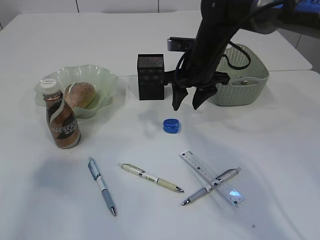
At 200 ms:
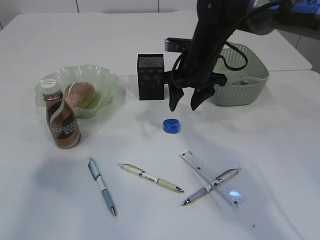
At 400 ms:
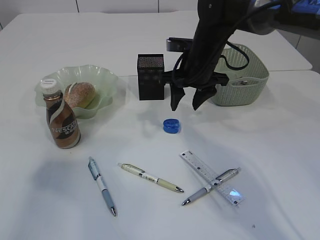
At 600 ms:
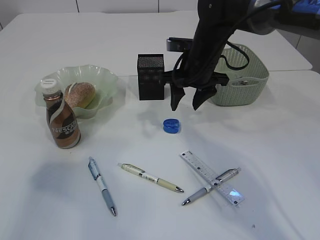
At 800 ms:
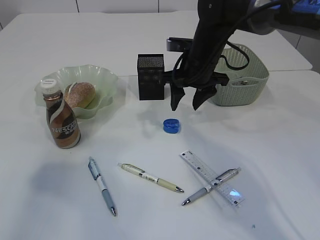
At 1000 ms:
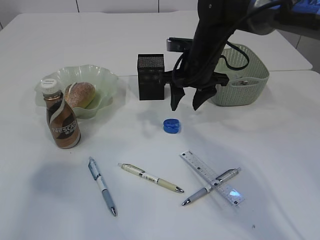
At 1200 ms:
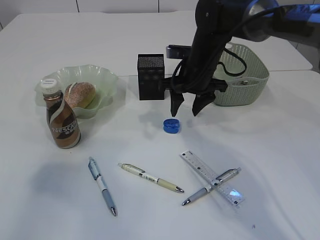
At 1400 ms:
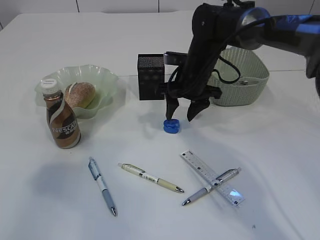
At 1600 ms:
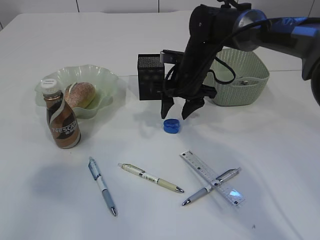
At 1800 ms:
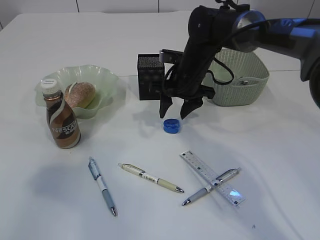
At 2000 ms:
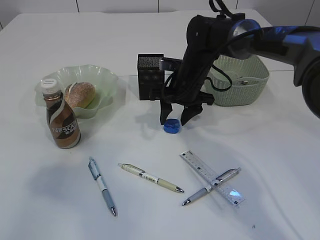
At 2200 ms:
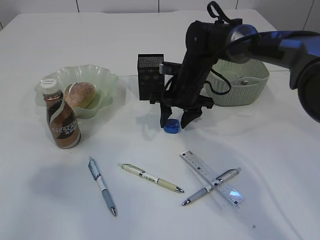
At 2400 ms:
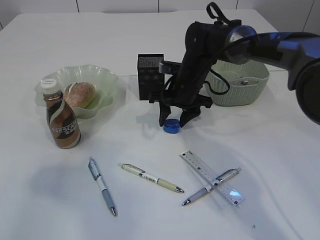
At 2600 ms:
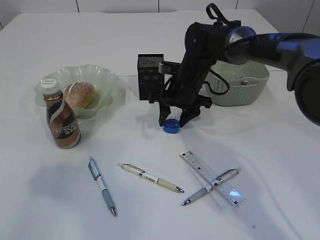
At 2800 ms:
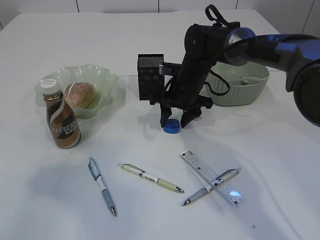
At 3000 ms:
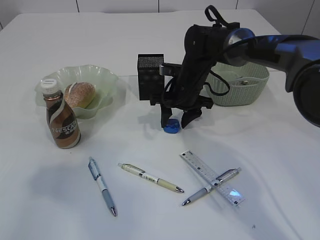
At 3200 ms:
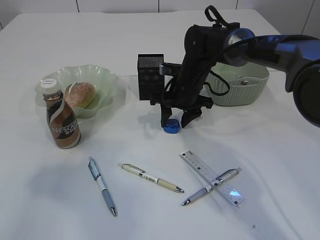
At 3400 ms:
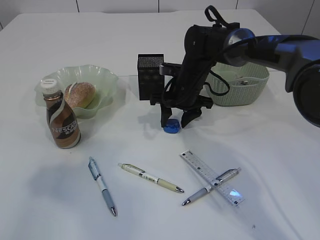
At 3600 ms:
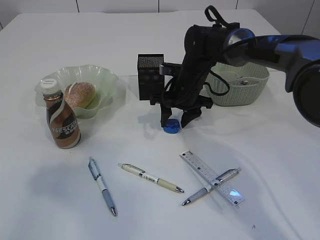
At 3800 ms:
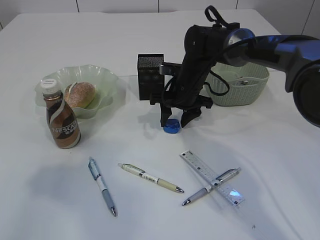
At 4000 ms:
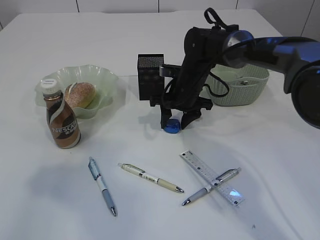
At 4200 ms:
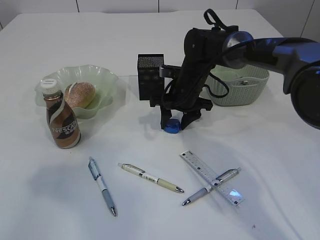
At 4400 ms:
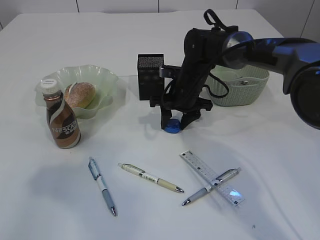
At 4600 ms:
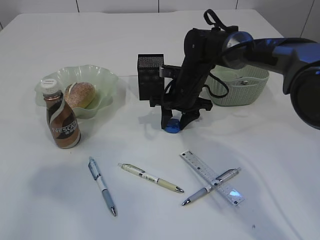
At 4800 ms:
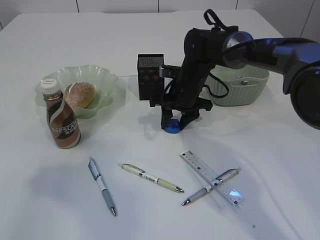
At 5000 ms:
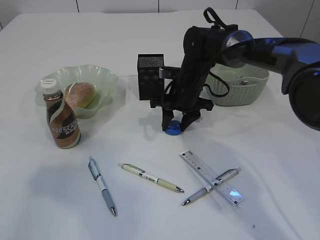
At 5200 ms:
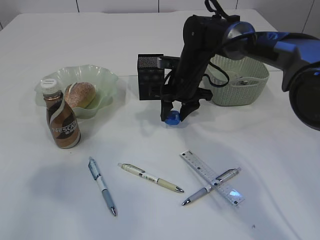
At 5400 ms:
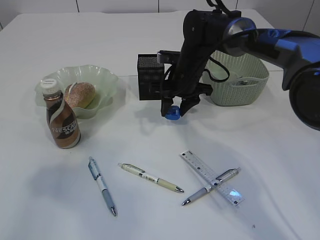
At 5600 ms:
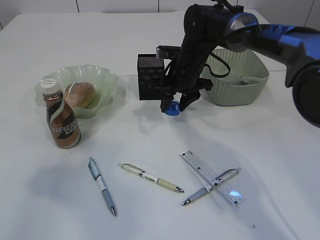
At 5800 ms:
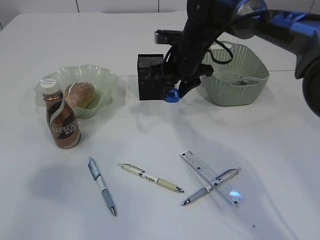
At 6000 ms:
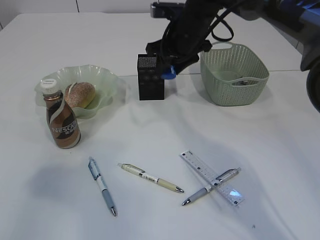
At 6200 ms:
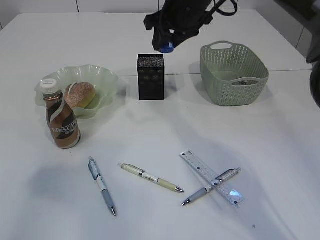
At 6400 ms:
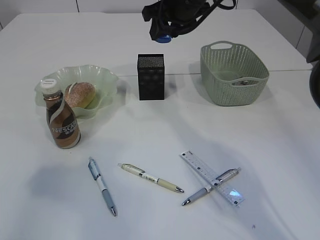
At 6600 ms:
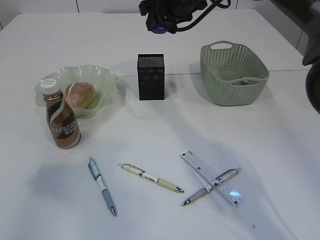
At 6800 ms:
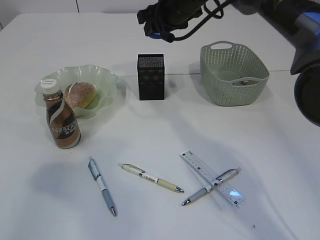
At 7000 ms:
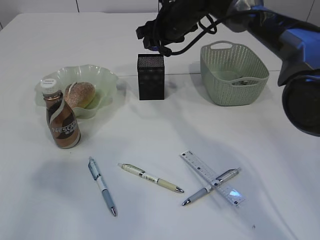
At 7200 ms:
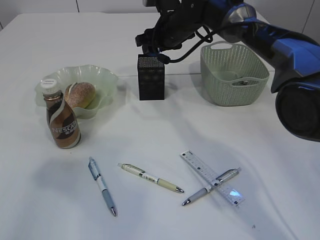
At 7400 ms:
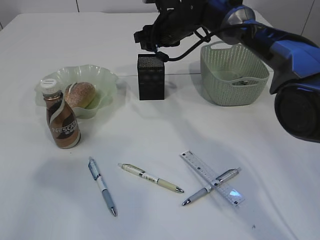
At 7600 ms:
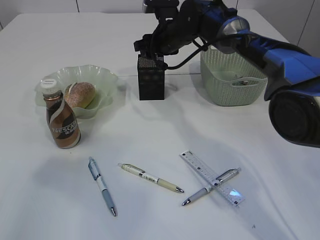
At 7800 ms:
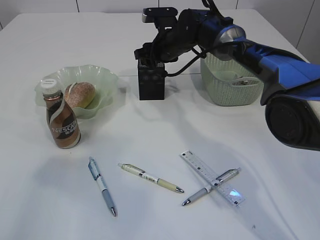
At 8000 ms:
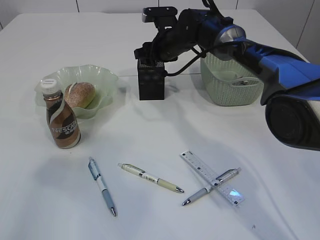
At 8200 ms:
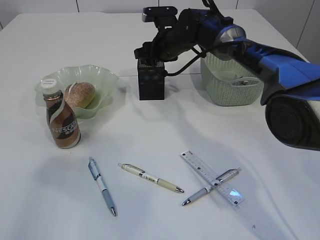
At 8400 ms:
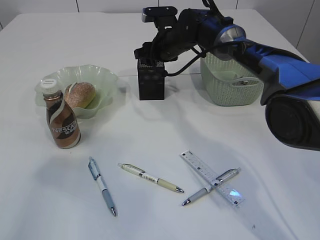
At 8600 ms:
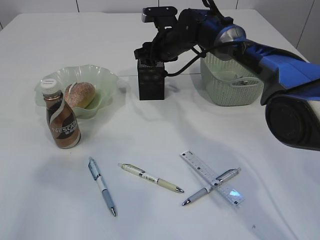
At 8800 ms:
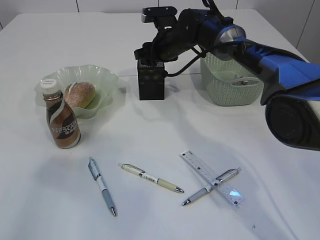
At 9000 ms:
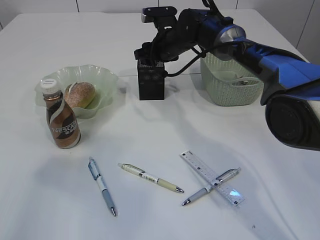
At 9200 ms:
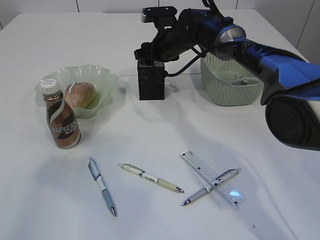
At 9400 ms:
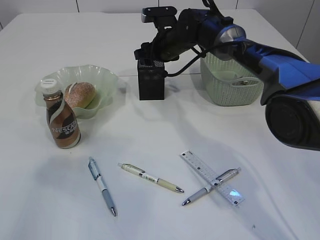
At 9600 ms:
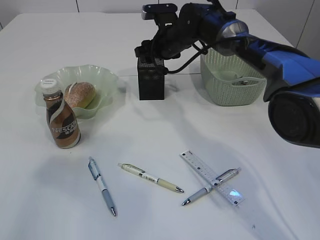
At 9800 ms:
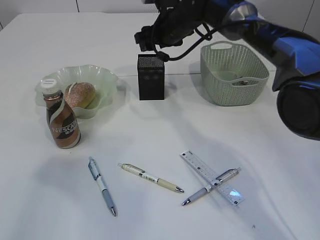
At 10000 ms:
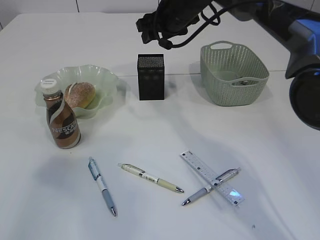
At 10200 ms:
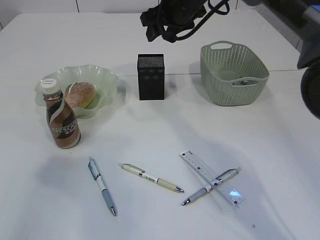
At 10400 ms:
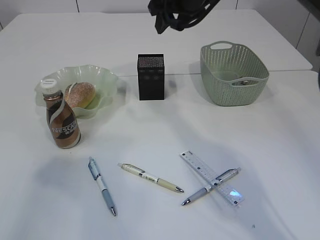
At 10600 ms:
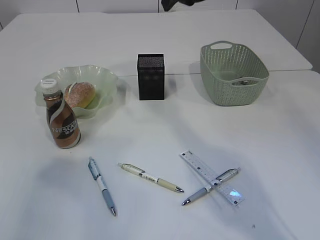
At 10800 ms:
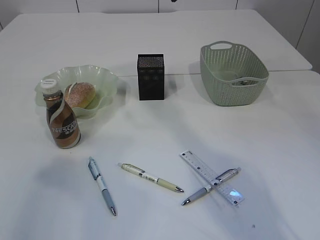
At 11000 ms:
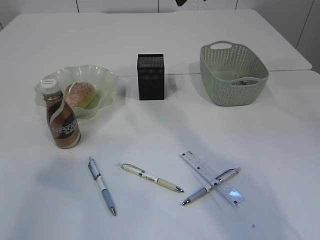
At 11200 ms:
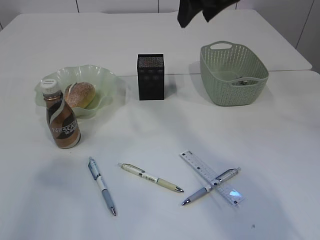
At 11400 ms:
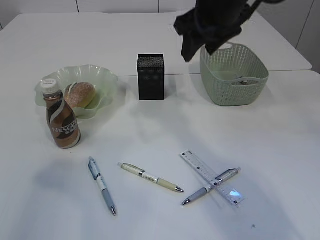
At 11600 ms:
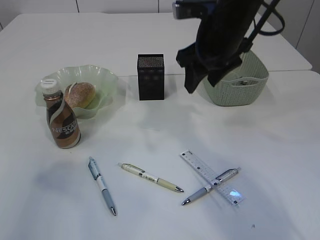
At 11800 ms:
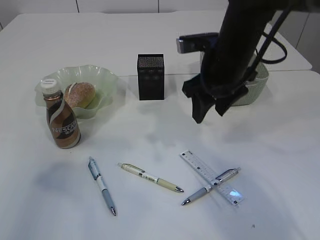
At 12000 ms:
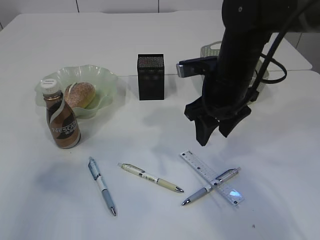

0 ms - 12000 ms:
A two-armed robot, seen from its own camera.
Step, 0 ms - 5800 ms: Pick up the blue pencil sharpener.
Step, 6000 ms - 10000 ms: Place the blue pencil sharpener into the pen holder.
0 ms - 1600 ms: The grippers stay close to where they were, moving slightly.
1600 ms - 3000 ms: The grippers stay close to where they were, moving slightly.
3000 ms - 4400 ms: Neither gripper changes place.
4400 ms - 6000 ms: The right gripper shifts roughly 10 cm upward.
6000 ms - 7600 ms: The right gripper moves forward, roughly 5 cm, and moves some 10 cm upward and comes back.
7600 ms - 9000 ms: The grippers make only small movements.
9000 ms - 10400 ms: The right gripper heads upward and backward, covering some 15 cm.
10400 ms - 12000 ms: The right gripper shifts about 15 cm backward and downward.

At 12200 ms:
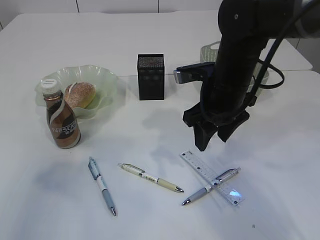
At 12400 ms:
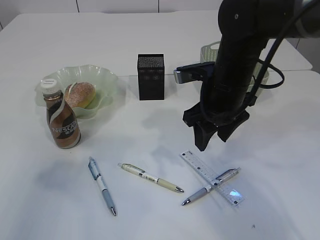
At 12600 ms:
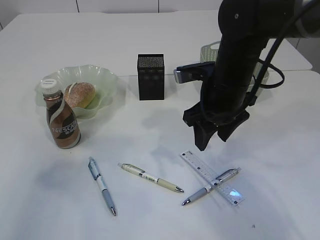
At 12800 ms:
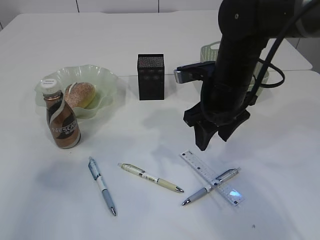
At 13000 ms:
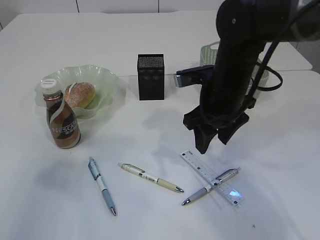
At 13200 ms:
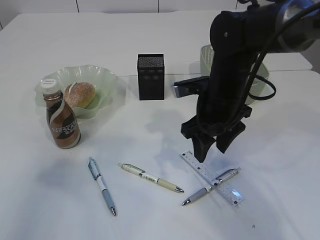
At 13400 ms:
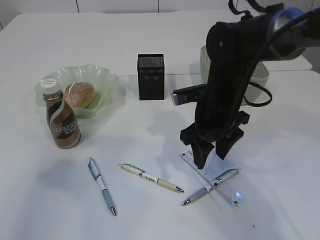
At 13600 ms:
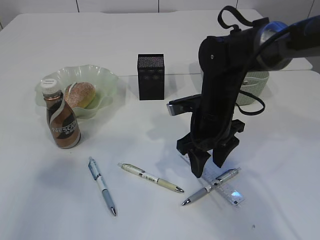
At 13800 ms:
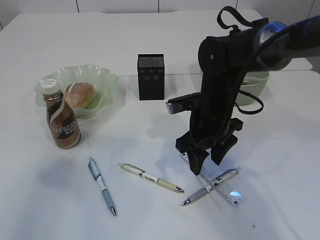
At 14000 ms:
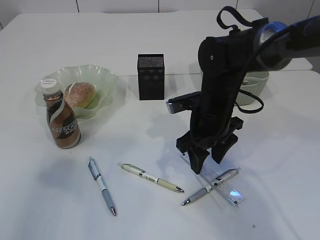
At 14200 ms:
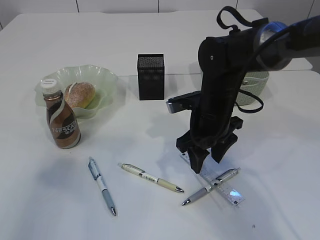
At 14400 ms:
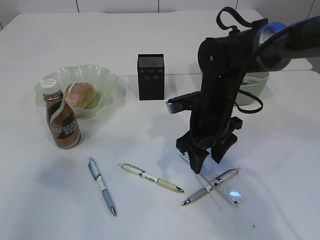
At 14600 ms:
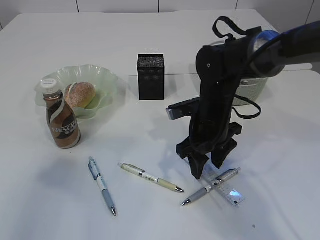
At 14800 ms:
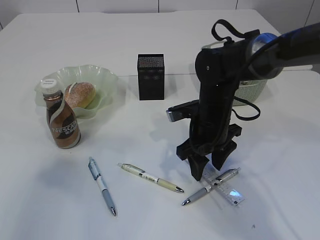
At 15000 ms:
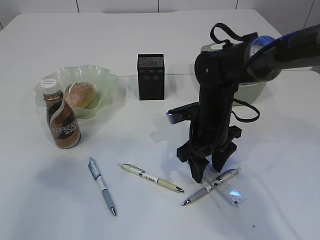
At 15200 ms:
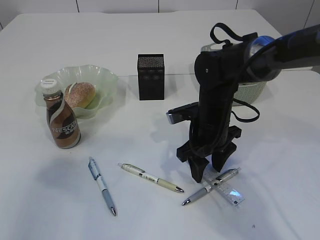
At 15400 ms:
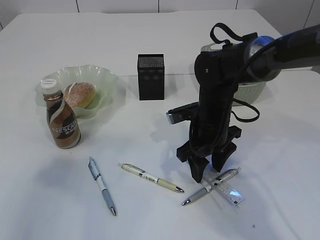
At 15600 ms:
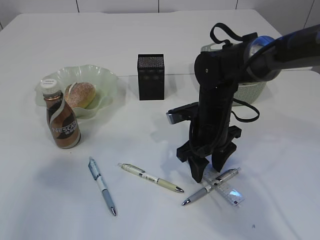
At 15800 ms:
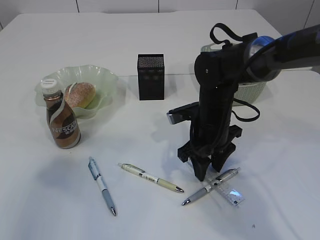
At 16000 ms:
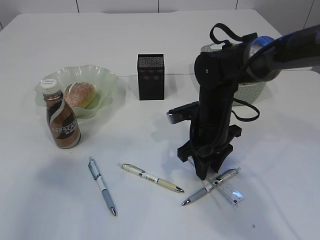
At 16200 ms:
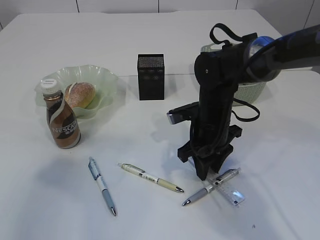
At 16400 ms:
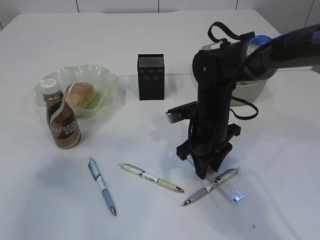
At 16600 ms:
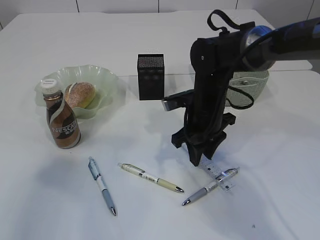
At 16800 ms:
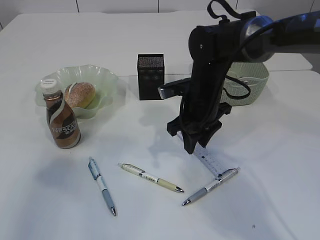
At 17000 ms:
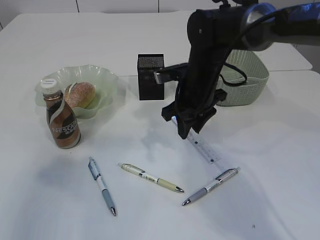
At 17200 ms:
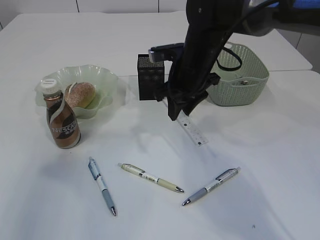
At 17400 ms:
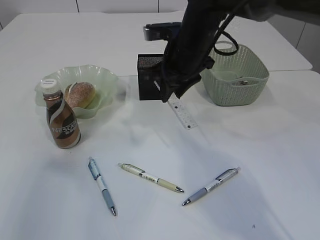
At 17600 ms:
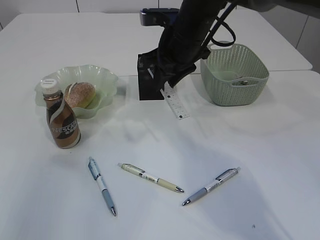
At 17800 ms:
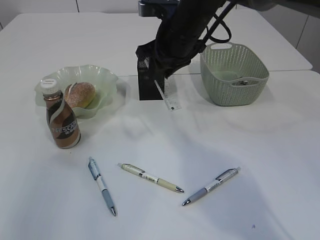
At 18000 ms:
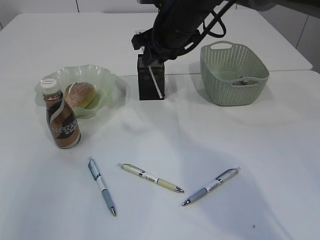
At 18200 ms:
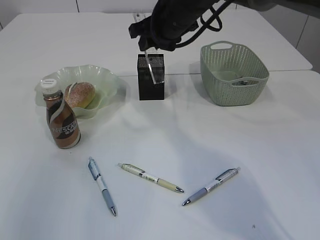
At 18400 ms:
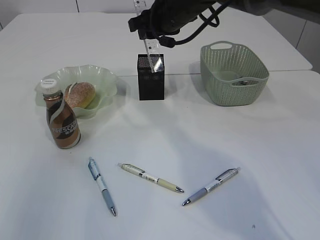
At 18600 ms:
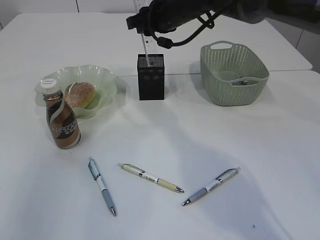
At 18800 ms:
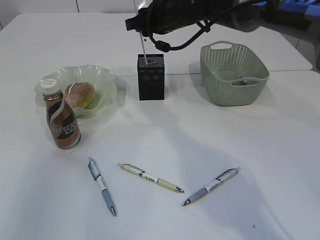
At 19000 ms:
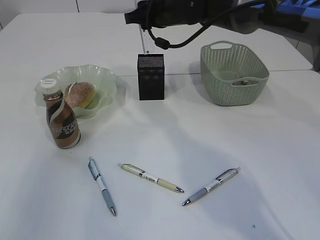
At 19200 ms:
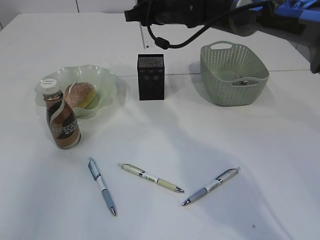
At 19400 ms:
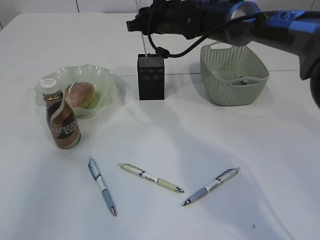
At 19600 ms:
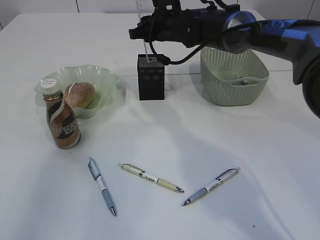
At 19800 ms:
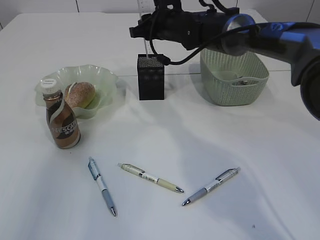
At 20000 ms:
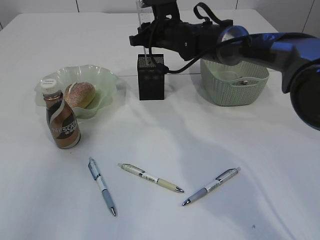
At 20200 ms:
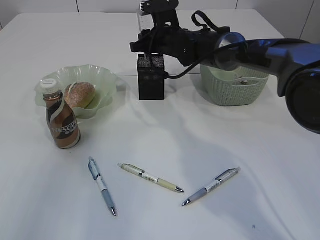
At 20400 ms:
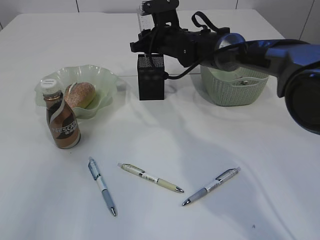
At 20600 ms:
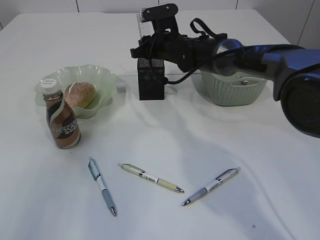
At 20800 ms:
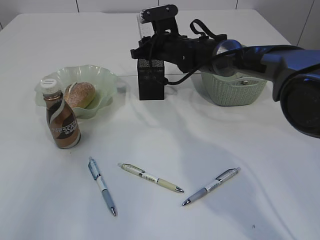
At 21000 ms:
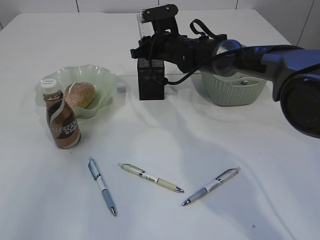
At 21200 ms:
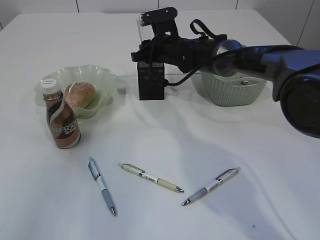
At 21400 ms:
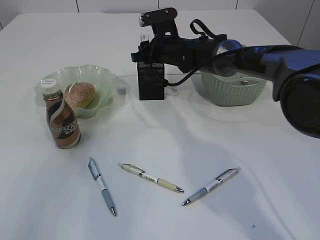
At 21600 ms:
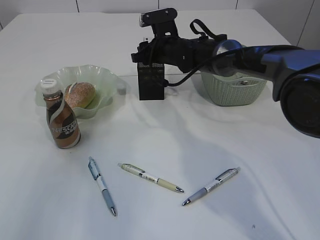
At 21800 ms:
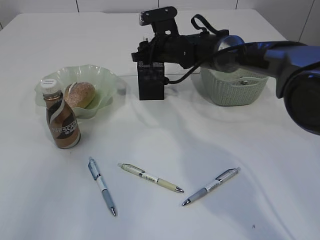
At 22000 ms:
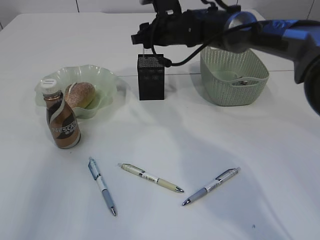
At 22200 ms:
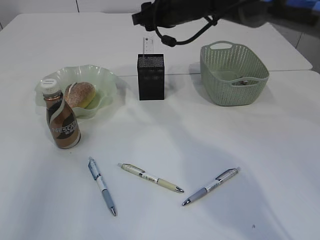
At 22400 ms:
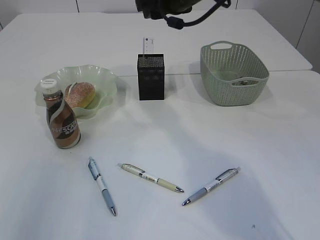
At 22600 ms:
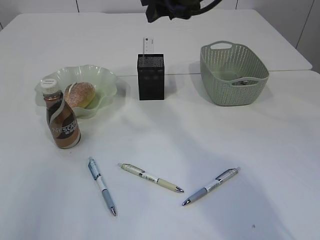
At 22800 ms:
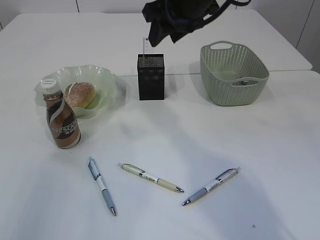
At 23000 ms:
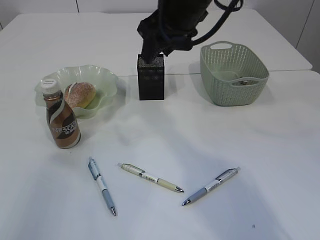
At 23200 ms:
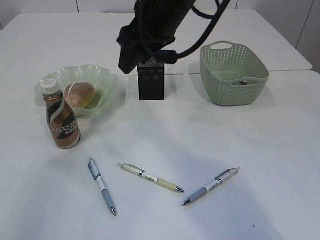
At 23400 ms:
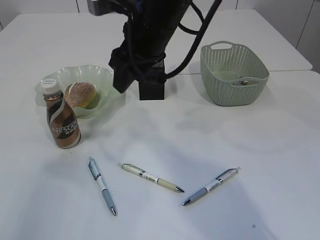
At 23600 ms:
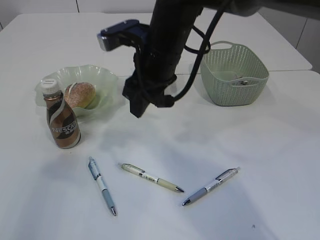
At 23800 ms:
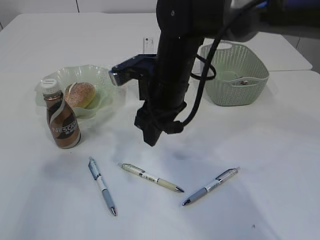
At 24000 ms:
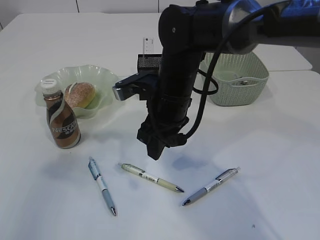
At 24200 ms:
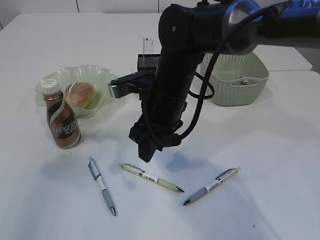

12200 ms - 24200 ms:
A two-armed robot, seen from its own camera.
Step, 12200 ms - 17000 ms: pick up the ruler.
Step, 17200 ms - 22200 ms: Place the ruler into the pen holder.
12200 ms - 13800 ms: The right gripper travels downward by approximately 5 cm.
13800 ms - 15200 ms: The grippers stay close to where they were, moving slightly.
15200 ms - 16600 ms: The right gripper closes.
16600 ms - 18200 ms: The right gripper moves upward and forward, roughly 15 cm.
18200 ms - 19800 ms: The right gripper shifts approximately 5 cm forward.
19800 ms - 21200 ms: The right gripper travels downward by approximately 5 cm.
21200 ms - 22600 ms: The right gripper heads upward and backward, covering approximately 20 cm.
22600 ms - 24200 ms: The right gripper moves downward and backward, approximately 15 cm.
